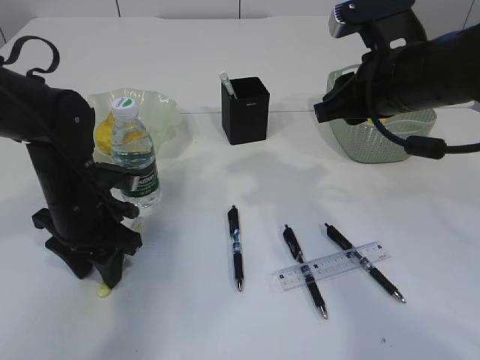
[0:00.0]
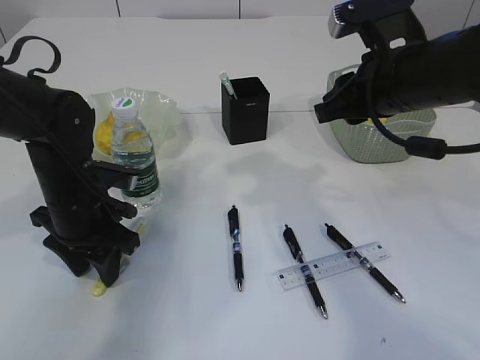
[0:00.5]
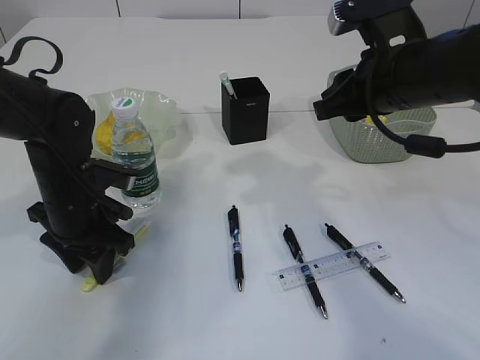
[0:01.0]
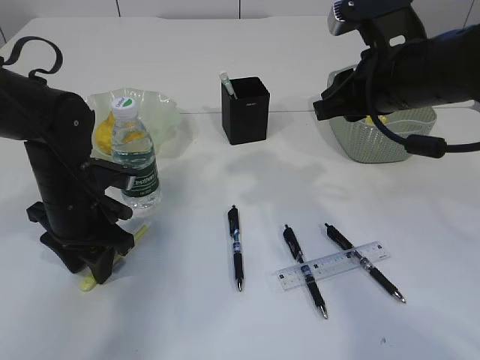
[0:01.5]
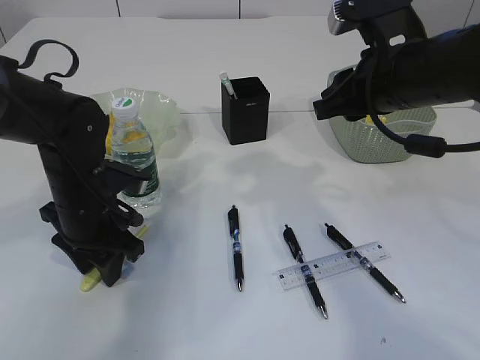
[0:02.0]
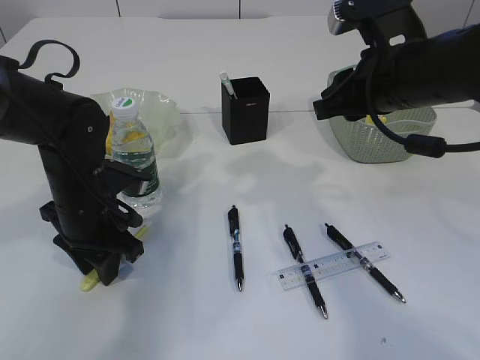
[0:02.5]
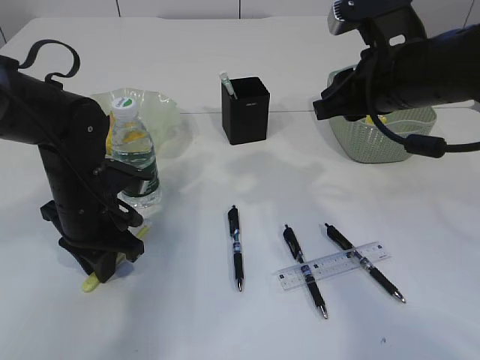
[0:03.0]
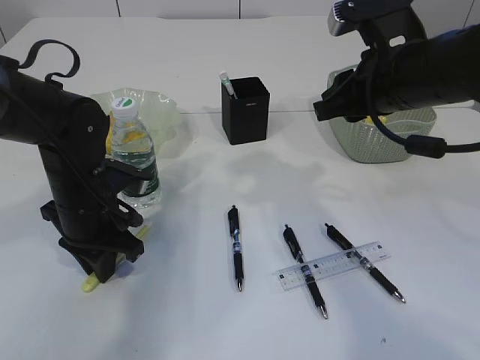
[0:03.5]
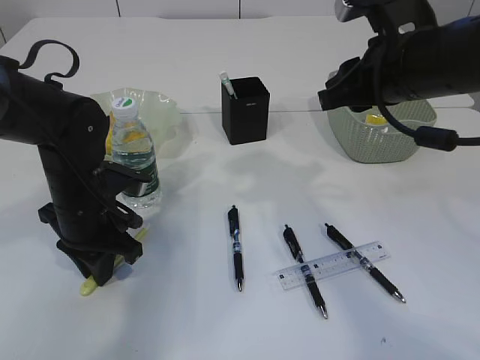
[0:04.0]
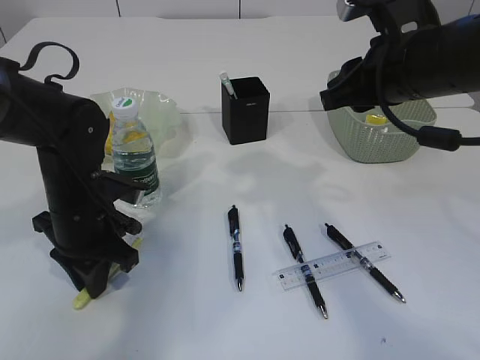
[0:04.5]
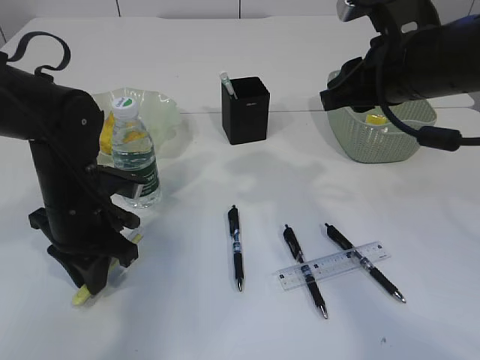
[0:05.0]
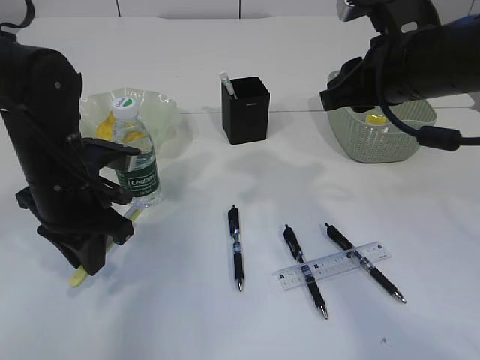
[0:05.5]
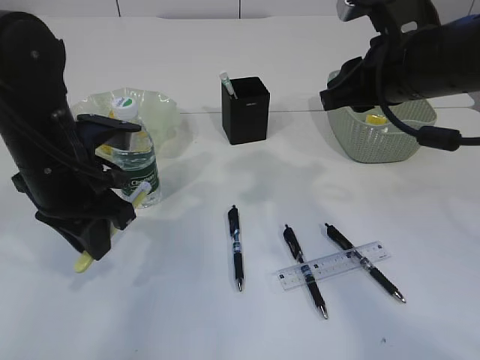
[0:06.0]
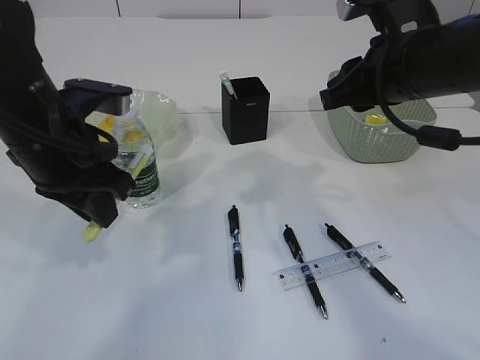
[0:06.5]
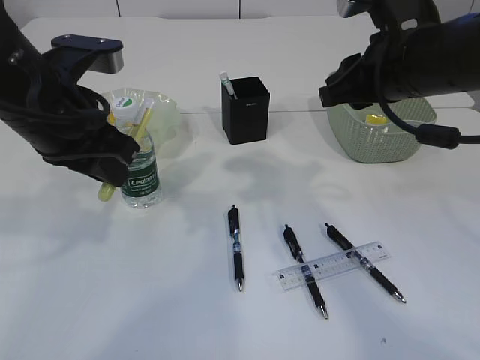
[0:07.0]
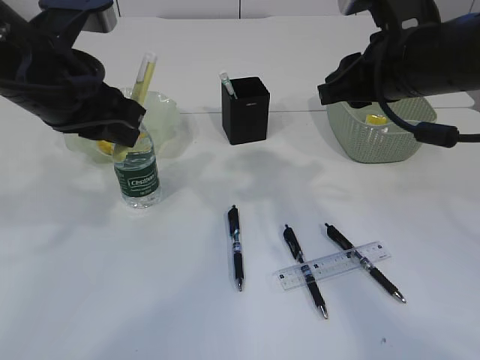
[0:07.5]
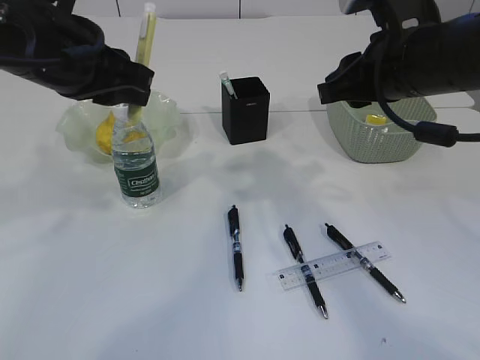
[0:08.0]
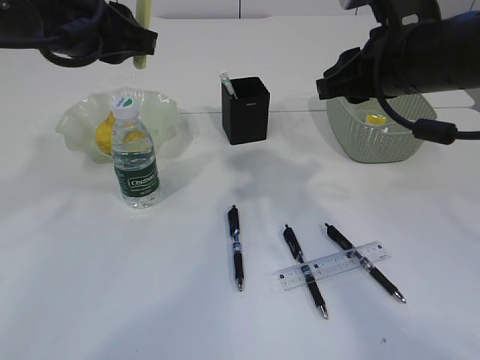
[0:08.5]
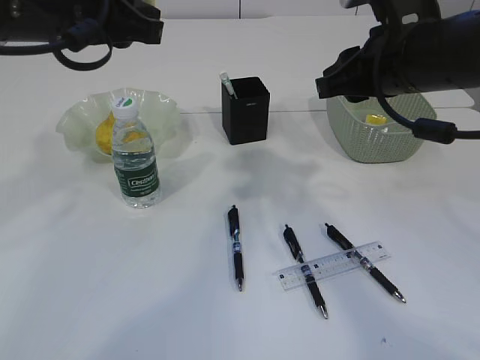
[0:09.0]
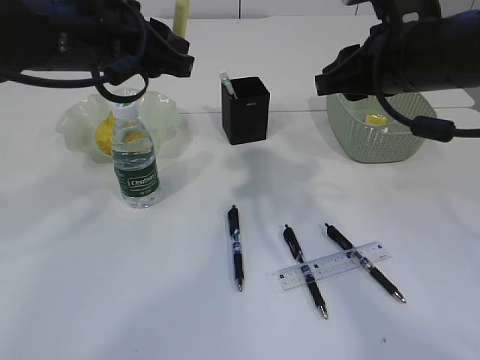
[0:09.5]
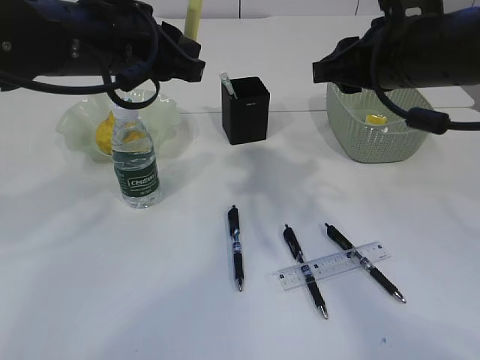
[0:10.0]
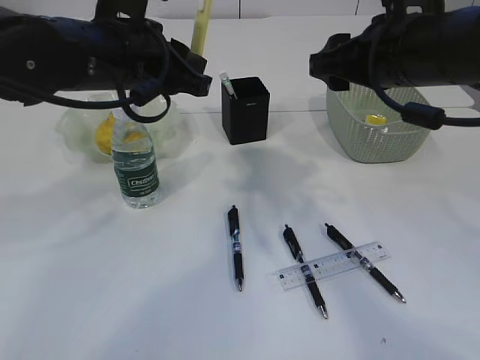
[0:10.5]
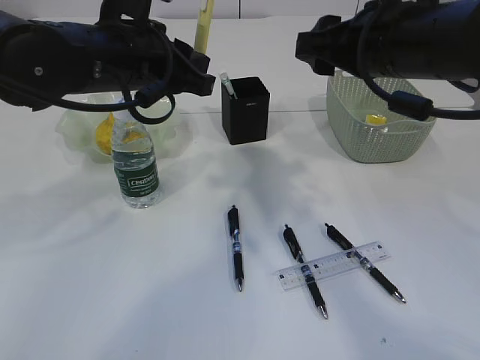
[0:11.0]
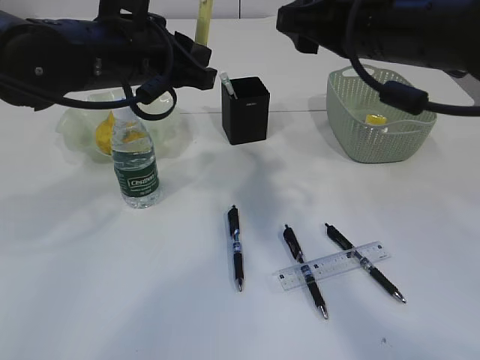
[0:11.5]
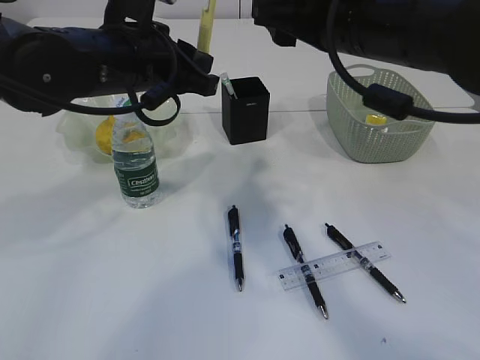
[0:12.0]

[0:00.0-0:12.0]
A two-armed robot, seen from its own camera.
Step, 0:00.0 to 0:06.0: pick up the yellow knife.
0:00.0 to 0:02.0: There are only small adjustments of the grippers.
0:02.0 to 0:04.0: The left gripper closes.
0:04.0 to 0:06.0: The left gripper is displaced upward by about 10 cm.
0:06.0 to 0:08.0: The left gripper shifts approximately 10 cm upward.
0:10.0 to 0:12.0: The right gripper shifts roughly 5 cm to the left, and opens up.

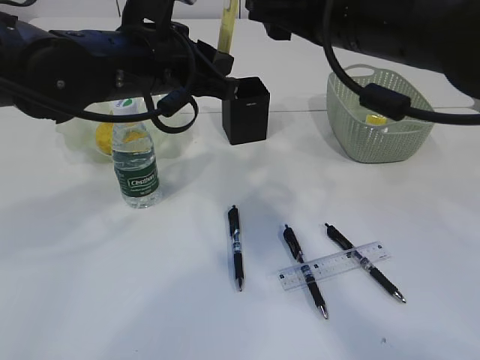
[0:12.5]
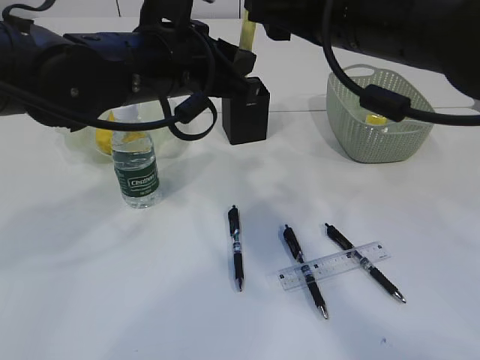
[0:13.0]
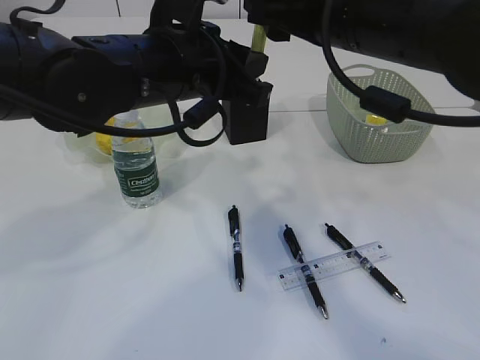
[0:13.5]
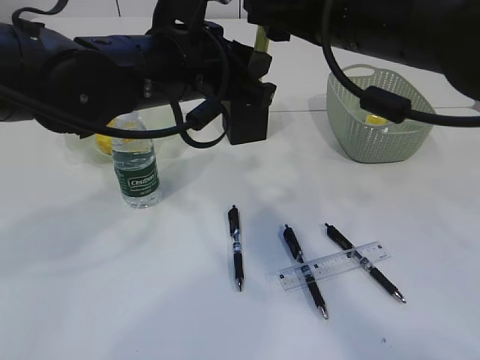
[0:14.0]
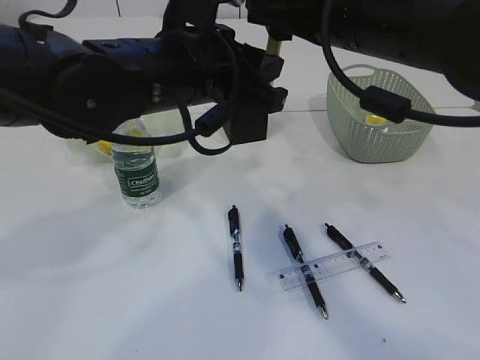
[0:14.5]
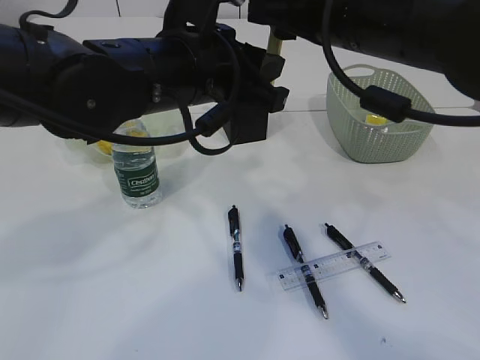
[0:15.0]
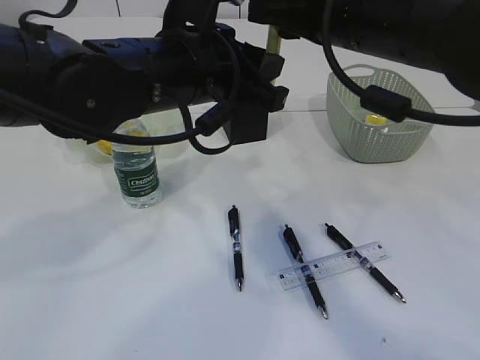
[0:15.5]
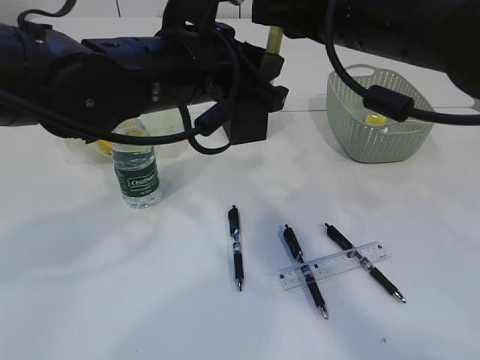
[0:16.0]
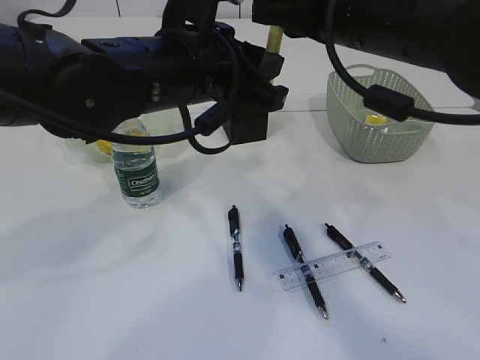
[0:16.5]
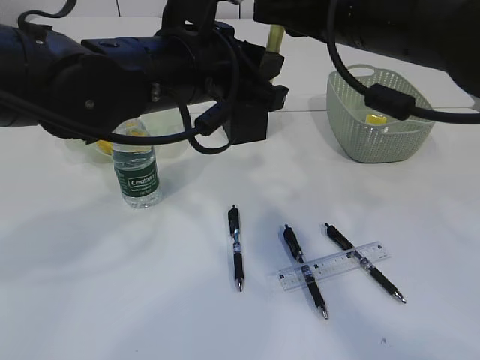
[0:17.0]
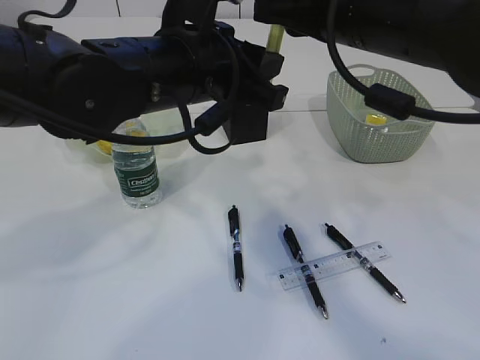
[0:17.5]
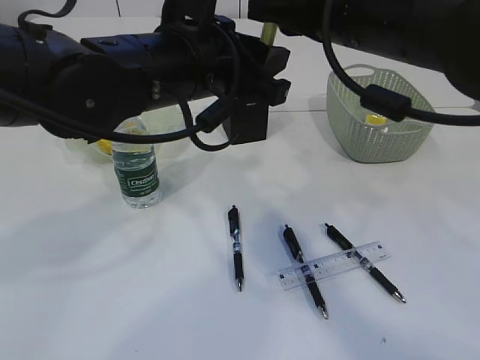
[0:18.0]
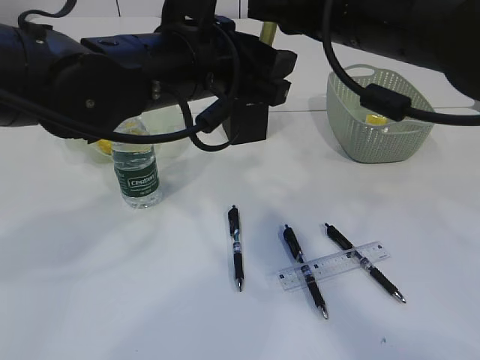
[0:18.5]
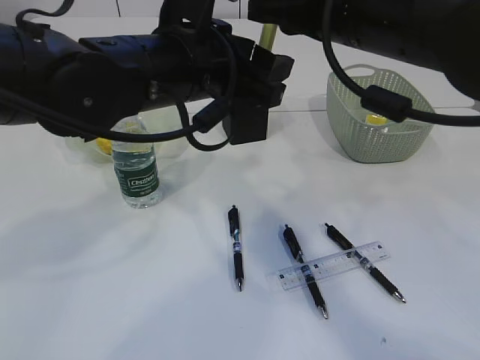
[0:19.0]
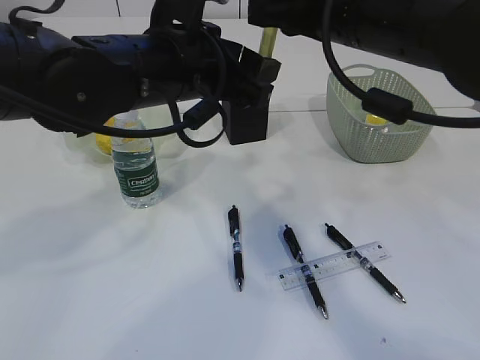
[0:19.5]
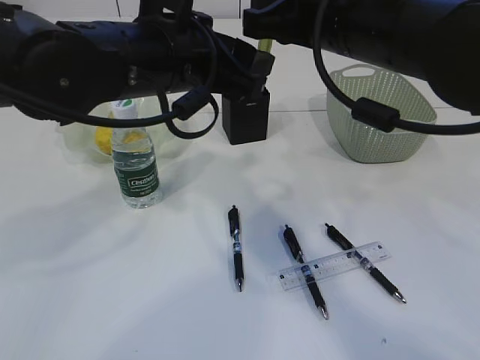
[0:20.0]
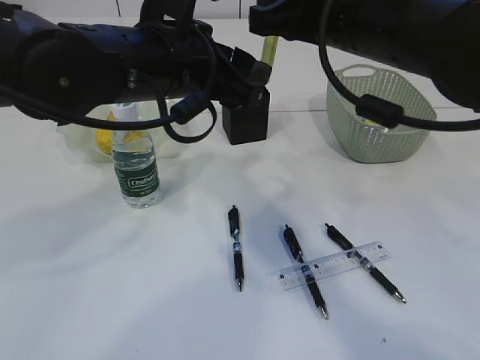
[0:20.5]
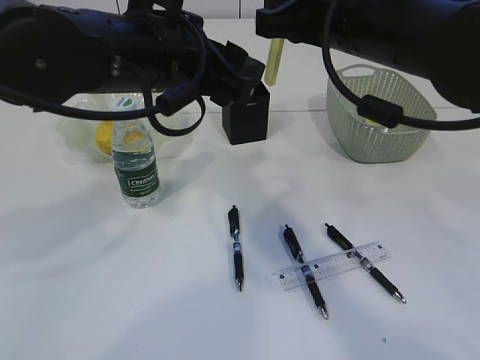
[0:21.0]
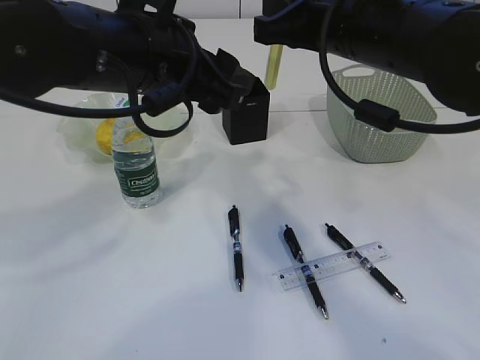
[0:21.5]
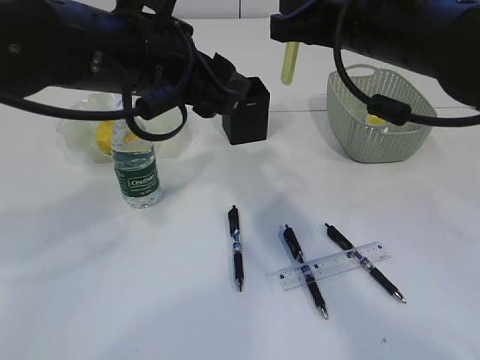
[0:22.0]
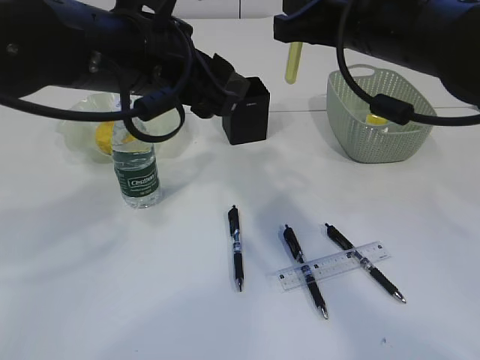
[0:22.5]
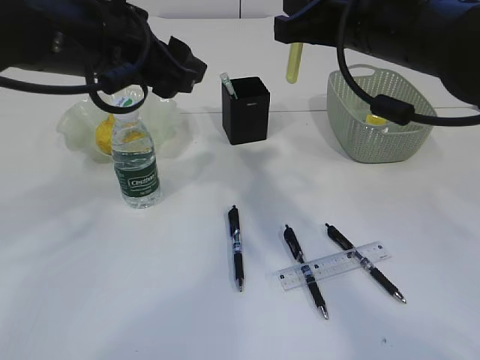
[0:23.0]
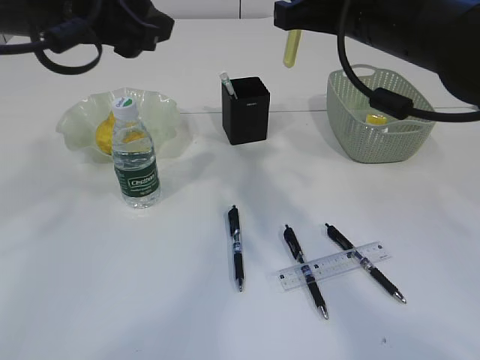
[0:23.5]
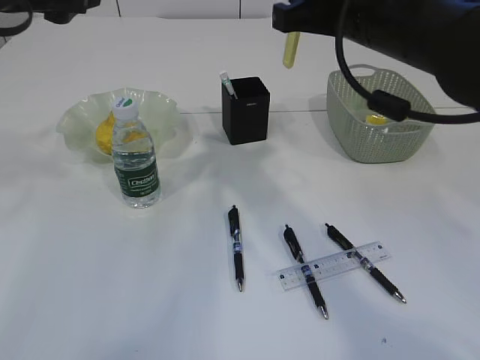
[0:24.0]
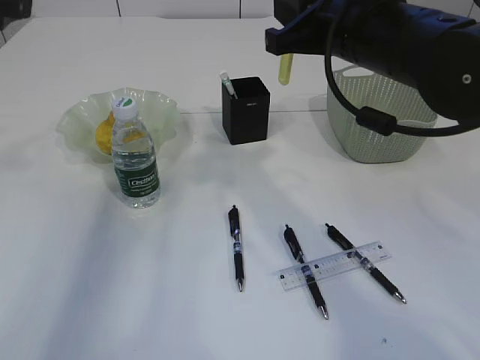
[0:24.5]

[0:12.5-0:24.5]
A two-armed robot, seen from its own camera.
Step, 0:12.5 to 0:20.5: Hand over the yellow knife.
0:12.5 to 0:14.5: The left gripper shifts by about 5 cm.
0:14.5 to 0:16.5: The right gripper closes up.
0:16.5 to 0:18.5: The left gripper opens.
0:18.5 to 0:22.5: The grippers move only a little.
0:22.5 to 0:24.5: The left gripper heads to the left, covering approximately 20 cm.

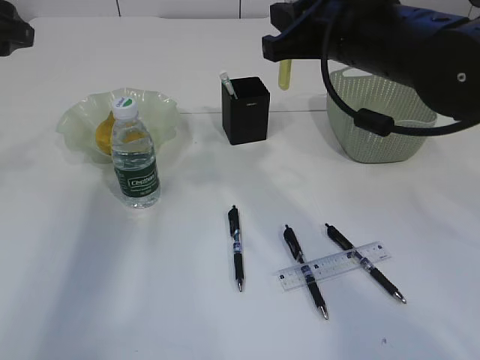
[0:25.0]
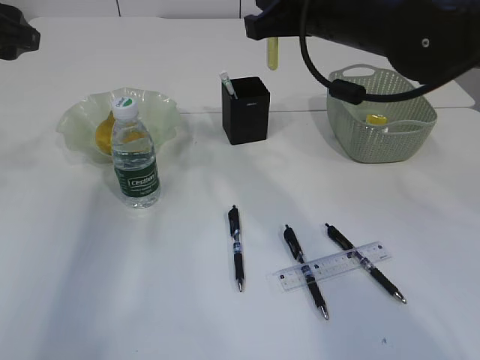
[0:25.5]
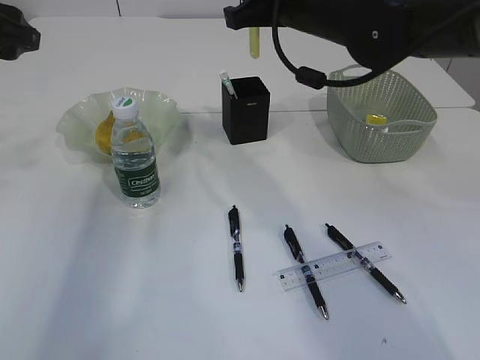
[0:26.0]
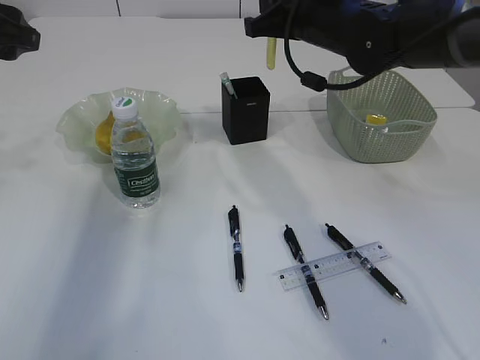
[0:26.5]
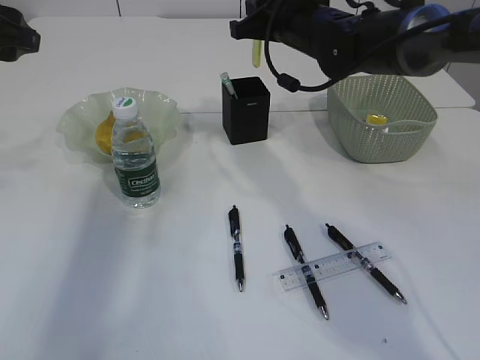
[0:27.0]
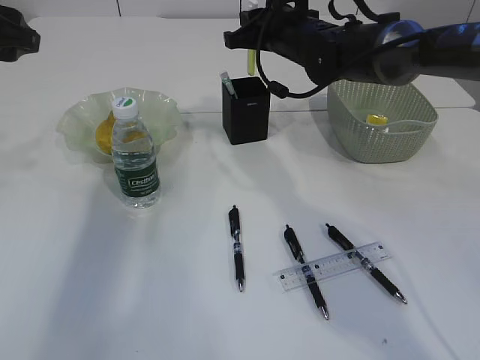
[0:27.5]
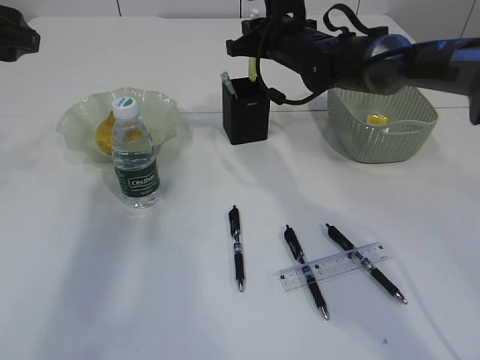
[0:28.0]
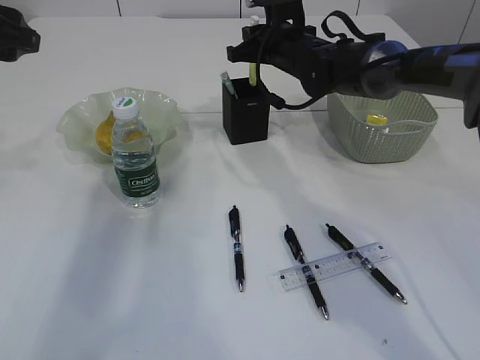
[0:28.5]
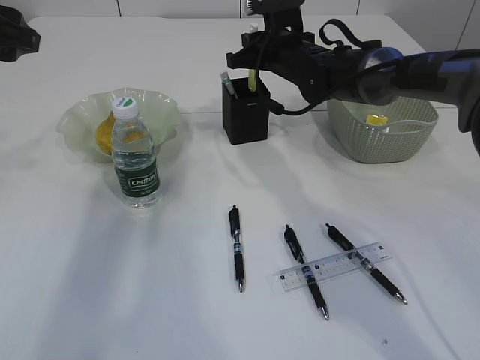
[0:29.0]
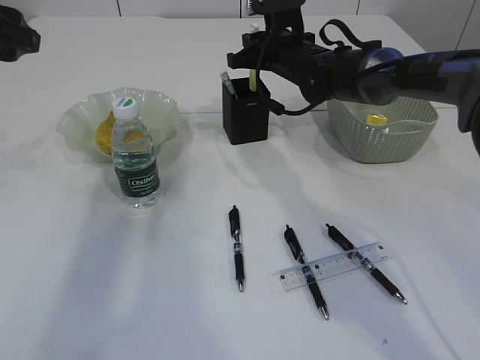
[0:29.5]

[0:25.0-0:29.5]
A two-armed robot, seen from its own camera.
0:25.0 to 0:27.0: The right gripper travels forward by roughly 15 cm.
0:27.0 to 0:29.5: The right gripper heads downward, covering approximately 5 cm.
